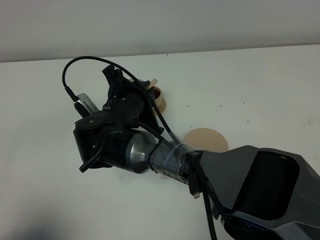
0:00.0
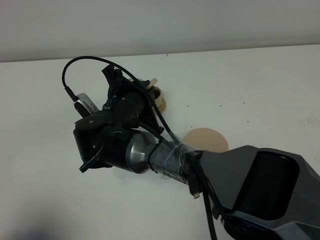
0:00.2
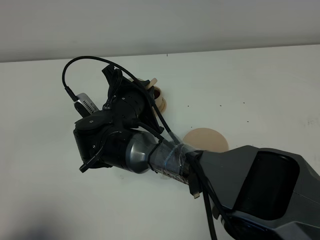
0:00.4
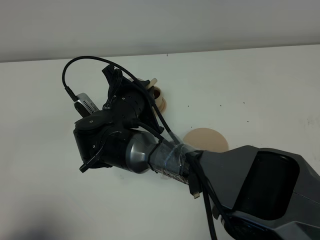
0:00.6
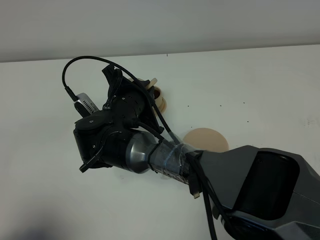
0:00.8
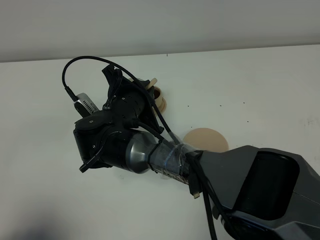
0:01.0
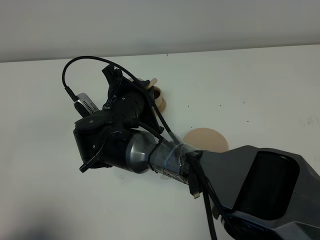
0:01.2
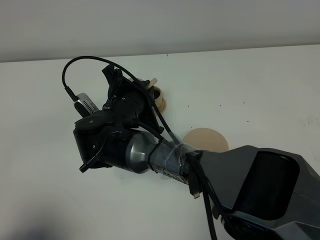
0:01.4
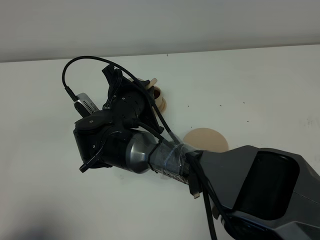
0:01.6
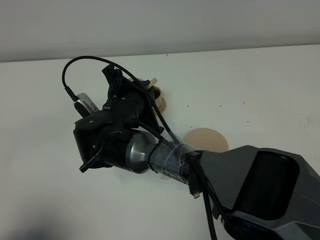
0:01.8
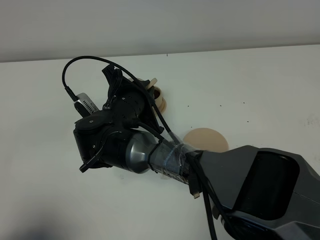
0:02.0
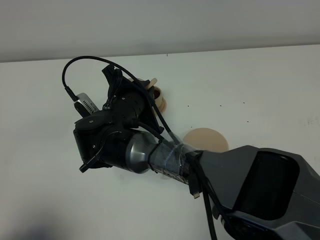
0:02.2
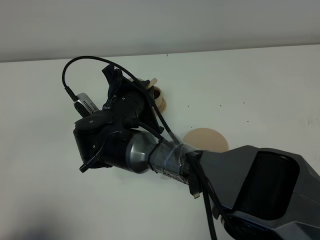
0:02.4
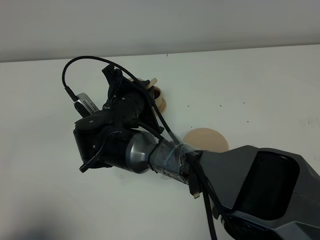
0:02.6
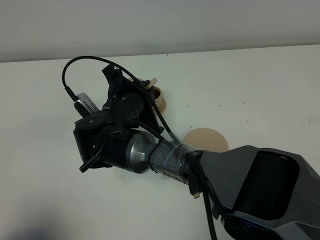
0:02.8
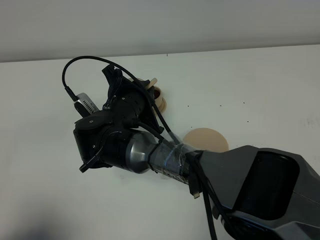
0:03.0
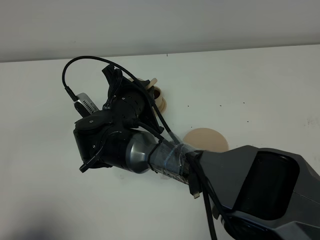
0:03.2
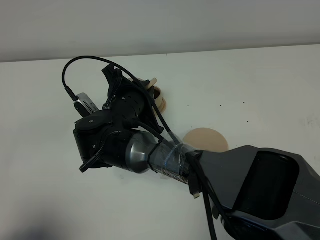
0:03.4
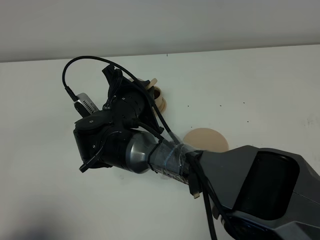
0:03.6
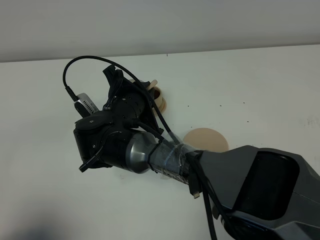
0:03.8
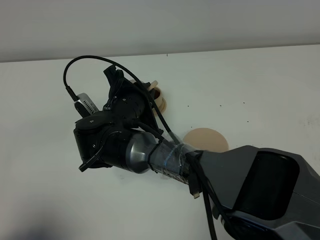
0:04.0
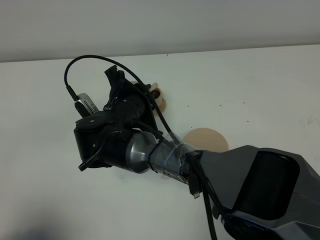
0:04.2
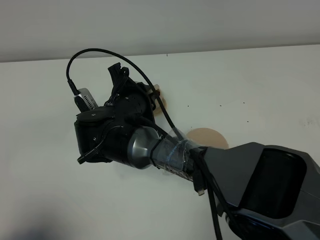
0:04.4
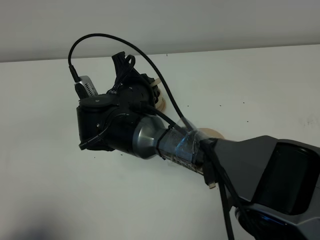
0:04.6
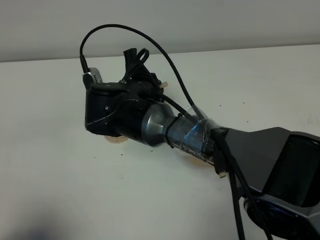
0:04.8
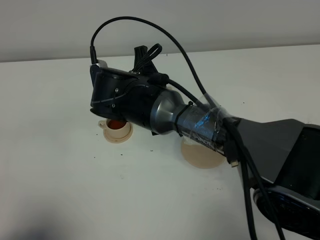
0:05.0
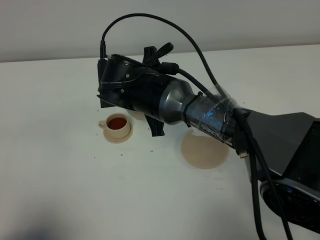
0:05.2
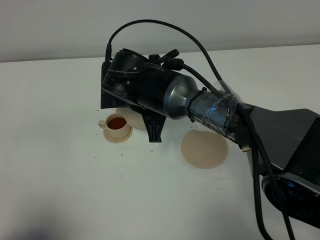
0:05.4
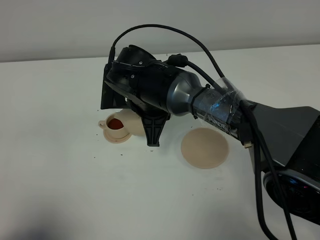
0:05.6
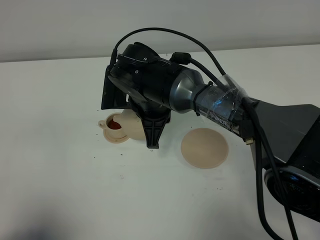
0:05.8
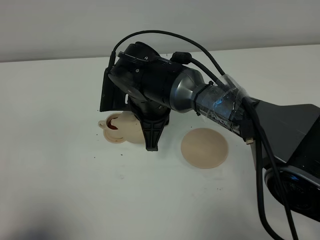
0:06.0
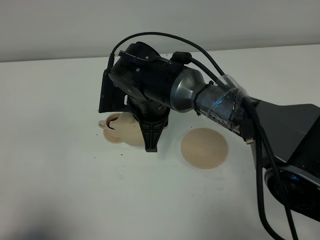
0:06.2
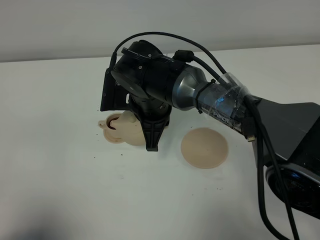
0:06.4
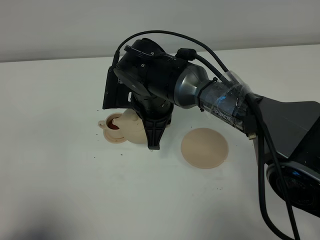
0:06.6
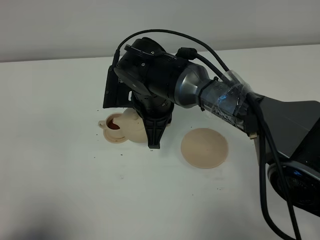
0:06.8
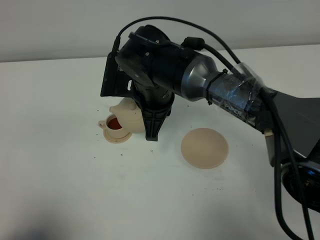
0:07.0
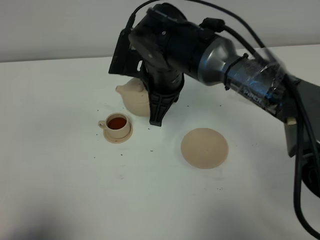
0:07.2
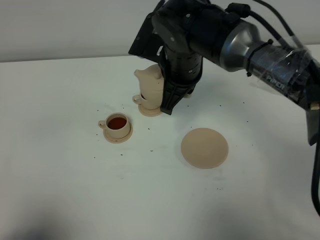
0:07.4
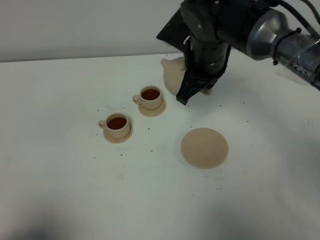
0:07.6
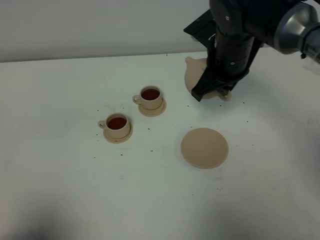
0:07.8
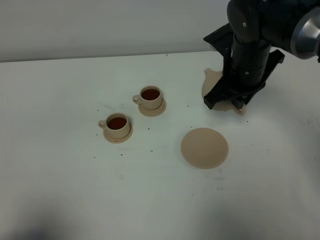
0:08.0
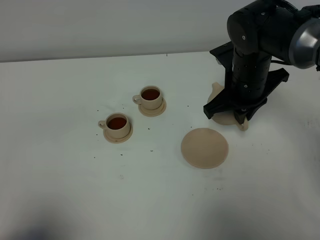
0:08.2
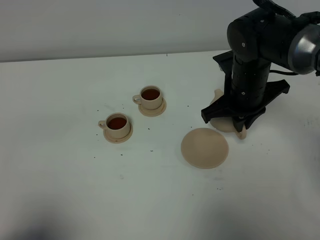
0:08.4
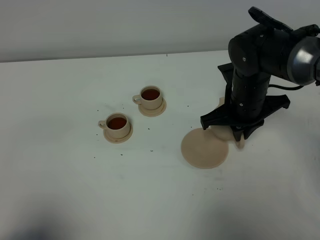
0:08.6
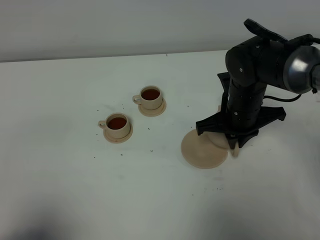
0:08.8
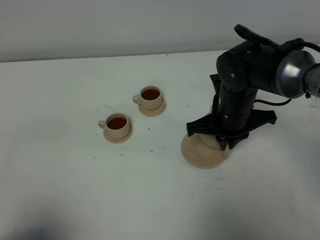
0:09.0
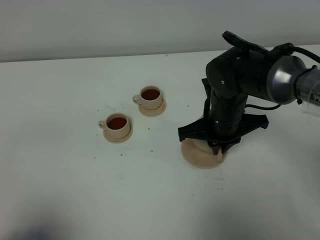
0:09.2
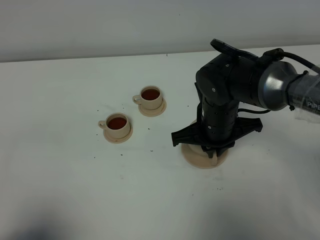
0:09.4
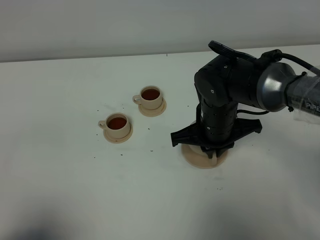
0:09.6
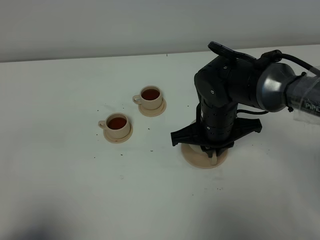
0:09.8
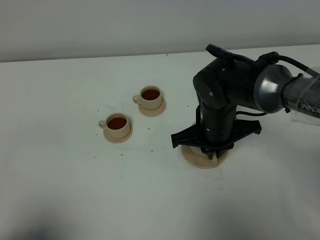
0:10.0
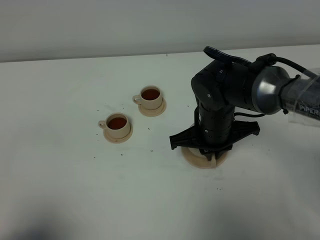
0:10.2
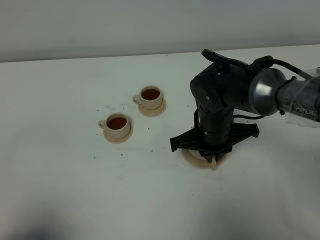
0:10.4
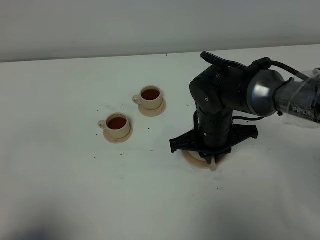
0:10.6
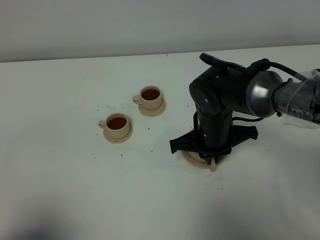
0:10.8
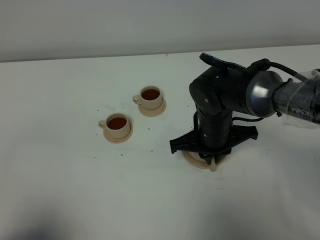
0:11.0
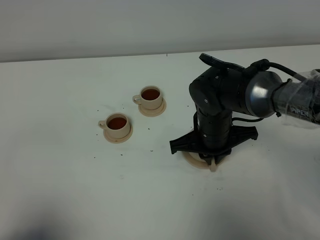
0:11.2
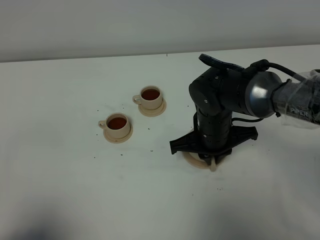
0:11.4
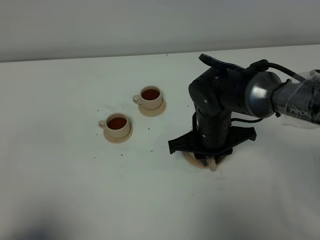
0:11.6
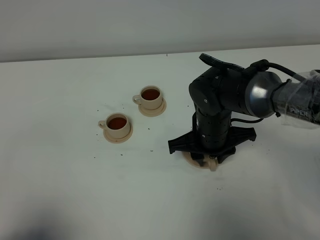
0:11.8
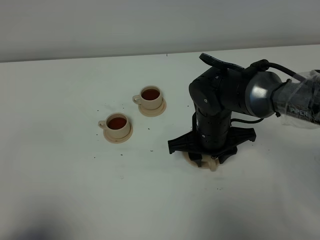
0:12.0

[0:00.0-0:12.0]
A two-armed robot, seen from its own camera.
Task of the whole recording: grasp the brown teapot and pour the tea into the two brown teacups one by one, put the brown teapot back in its original place.
Step, 0:00.0 to 0:04.8: Pour tea into the teacup with the right gripper.
0:00.0 to 0:03.0: Both grippers stay about where they are.
0:03.0 to 0:04.4: There are only small adjustments of the grippers.
0:04.4 to 0:06.0: The right gripper changes place by approximately 5 cm.
0:06.0 to 0:07.6: The right gripper heads to the right, upward and forward, covering approximately 15 cm.
0:07.6 to 0:09.0: The right gripper shifts approximately 10 cm downward.
0:09.0 to 0:10.4: The grippers move only a little.
0:10.4 to 0:12.0: The right gripper opens up.

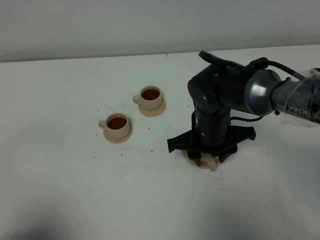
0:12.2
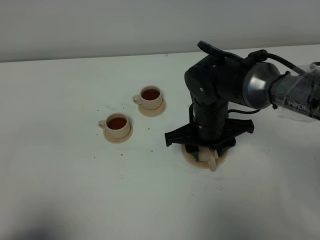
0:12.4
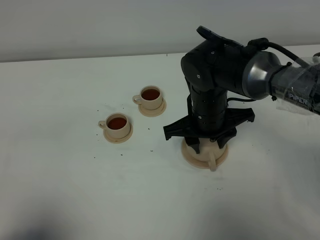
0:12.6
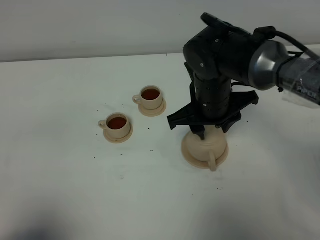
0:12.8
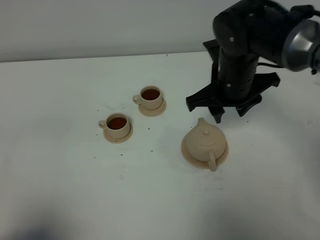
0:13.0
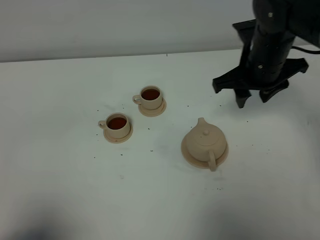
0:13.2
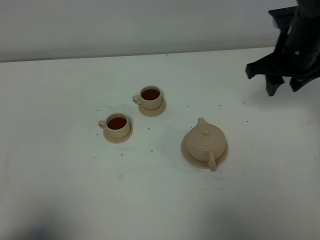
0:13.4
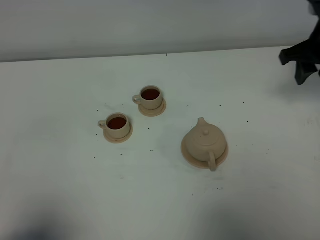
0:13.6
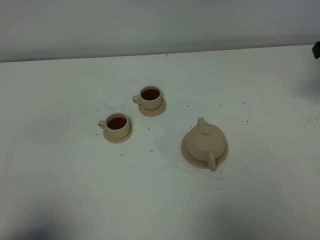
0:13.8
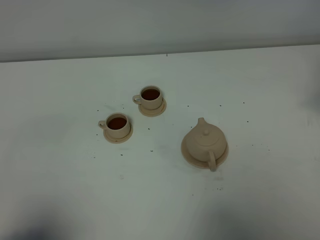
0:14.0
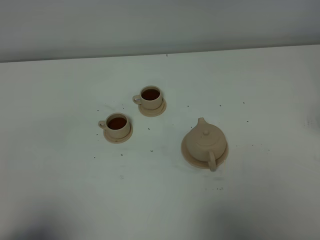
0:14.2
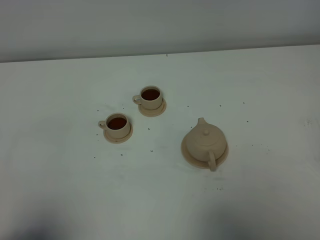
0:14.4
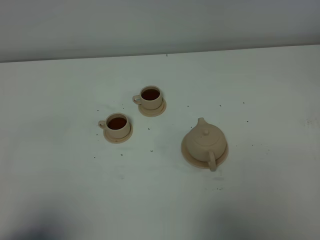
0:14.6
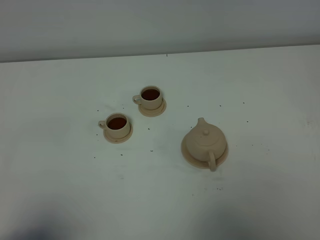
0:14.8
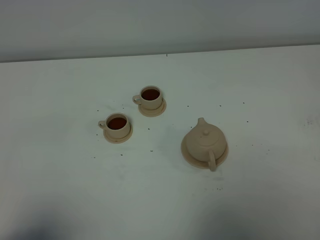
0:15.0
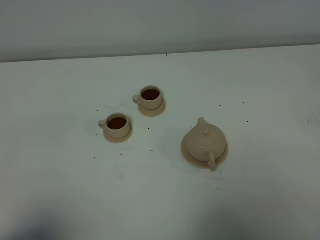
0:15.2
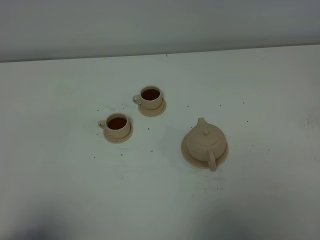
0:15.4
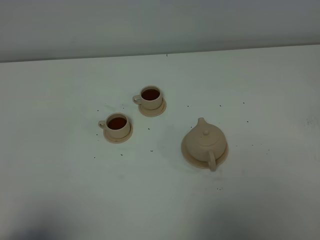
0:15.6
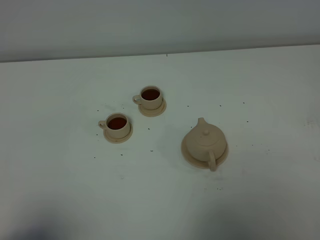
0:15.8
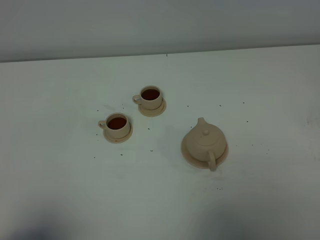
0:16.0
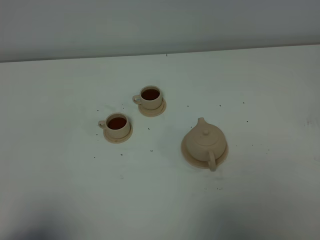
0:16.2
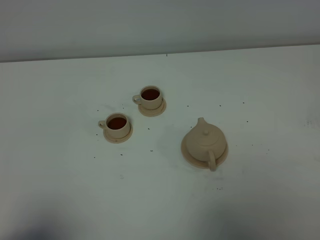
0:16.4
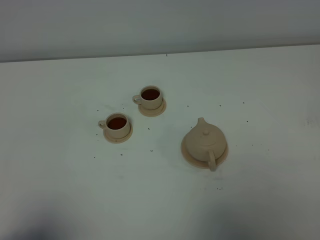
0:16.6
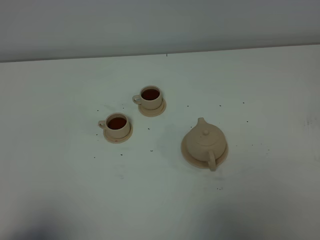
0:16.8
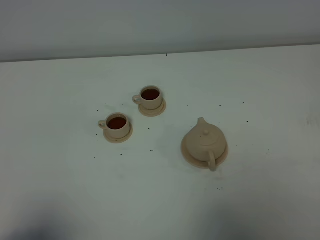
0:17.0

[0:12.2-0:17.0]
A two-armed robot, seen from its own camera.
Task of the whole recording: grasp the brown teapot and pour the tea into the two brown teacups one by one, put the brown teapot back in its original place.
0:12.2 to 0:13.8: The right gripper is displaced to the right and upward by about 30 cm.

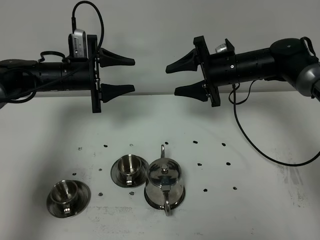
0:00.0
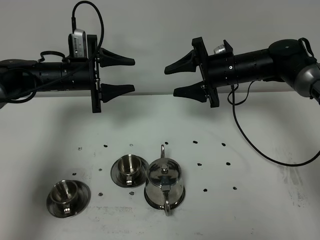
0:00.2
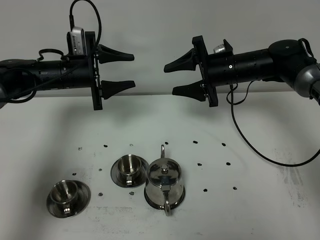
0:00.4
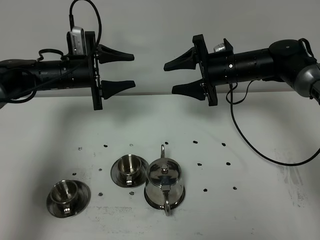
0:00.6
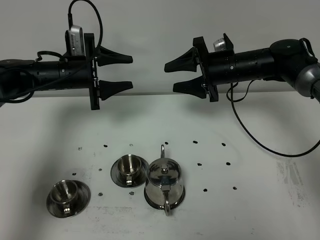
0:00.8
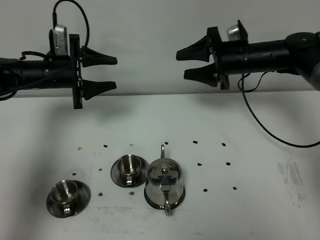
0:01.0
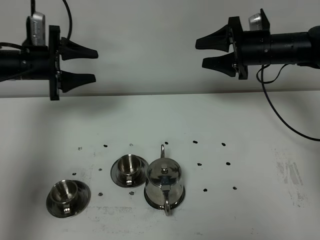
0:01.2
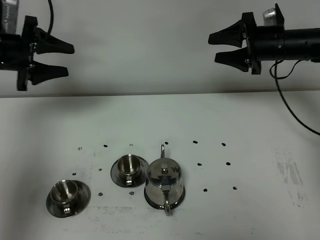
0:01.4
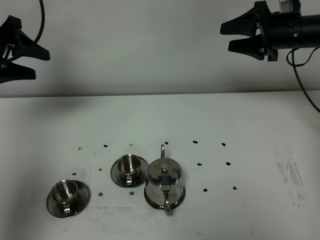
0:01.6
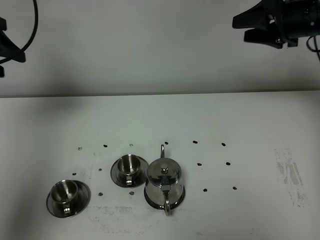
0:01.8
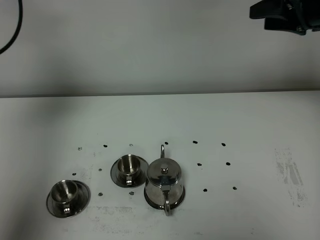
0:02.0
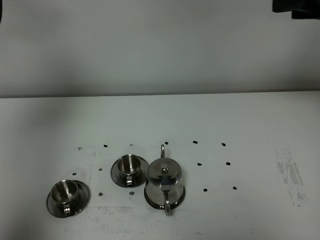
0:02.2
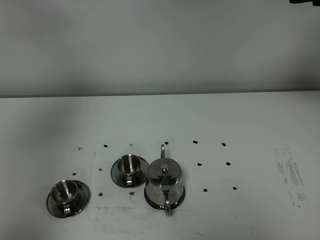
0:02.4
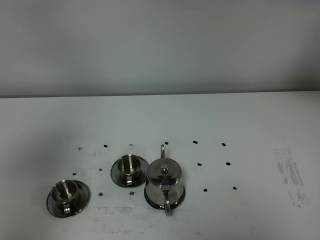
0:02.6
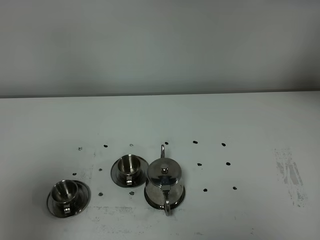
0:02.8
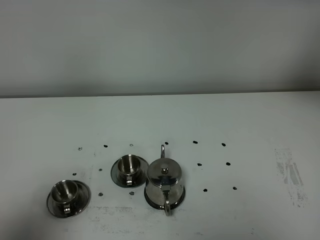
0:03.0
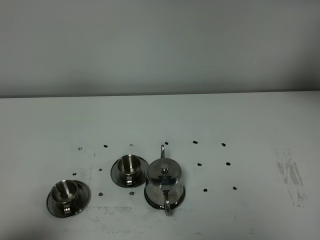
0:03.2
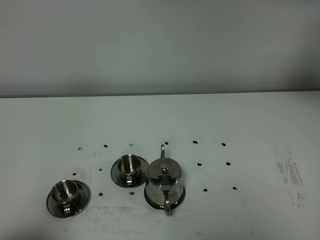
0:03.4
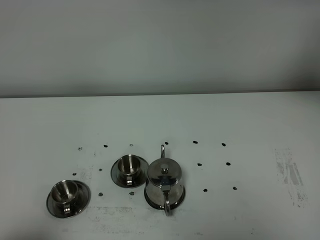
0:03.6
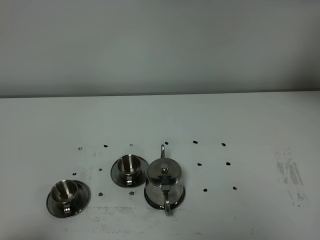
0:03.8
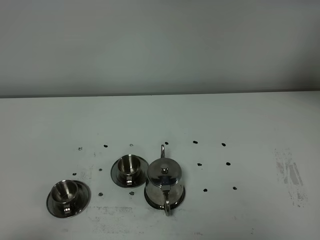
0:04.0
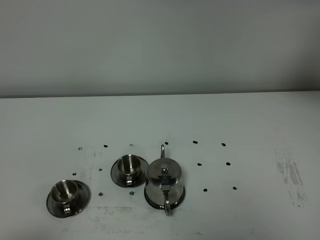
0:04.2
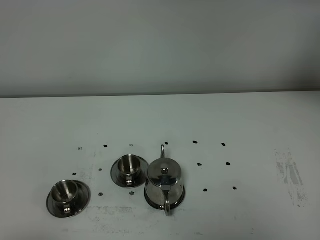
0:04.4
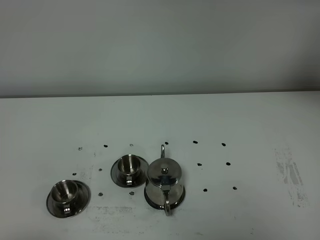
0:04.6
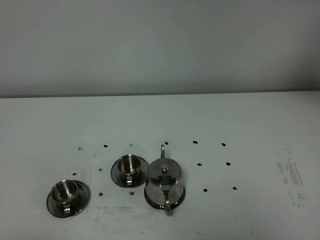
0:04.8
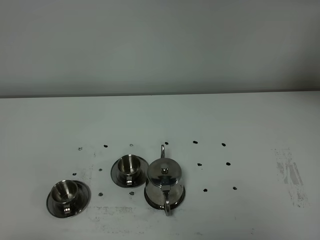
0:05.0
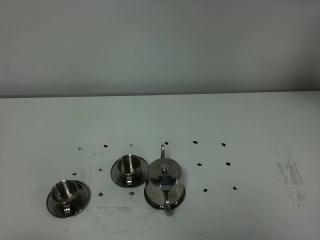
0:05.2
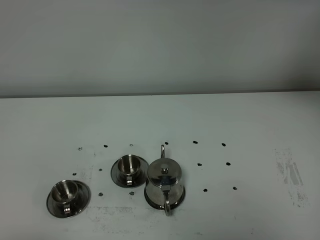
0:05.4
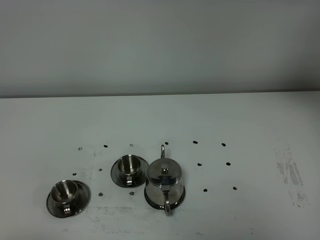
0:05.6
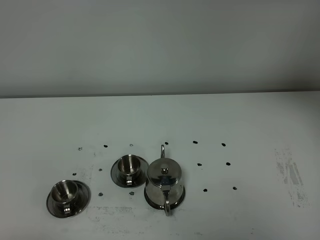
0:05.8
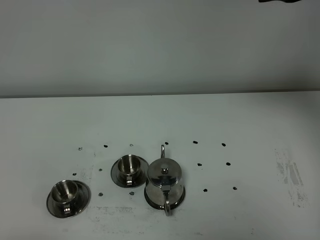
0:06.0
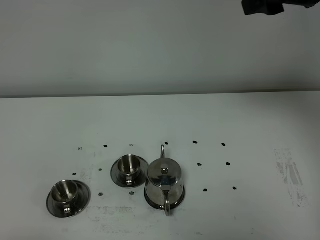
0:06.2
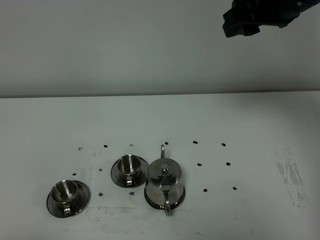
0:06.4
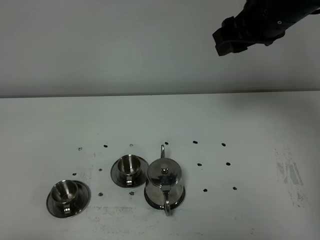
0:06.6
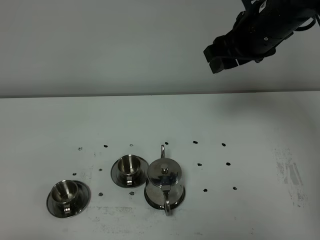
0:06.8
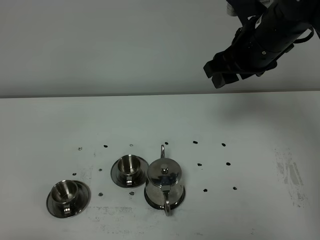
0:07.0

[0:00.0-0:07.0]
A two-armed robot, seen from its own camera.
Task of the whole recording: grasp the stainless steel teapot and pour the tea into the two stainless steel teacups one by one, put the stainless steel teapot back in its original place.
0:00.0 to 0:01.4: The left gripper is displaced to the left and upward by about 15 cm. The right gripper goes about 10 cm to the right.
0:01.4 to 0:02.8: The left gripper travels backward by about 35 cm; the right gripper moves upward and backward, roughly 25 cm.
0:02.8 to 0:04.2: The left gripper heads downward and backward, covering about 15 cm.
0:05.6 to 0:07.0: The right gripper heads downward and to the left, covering some 15 cm.
